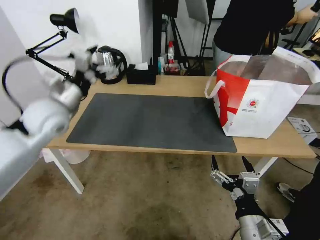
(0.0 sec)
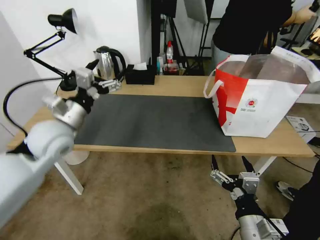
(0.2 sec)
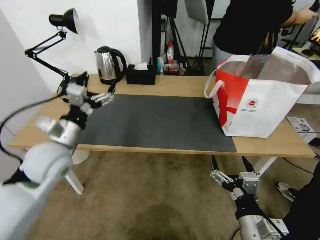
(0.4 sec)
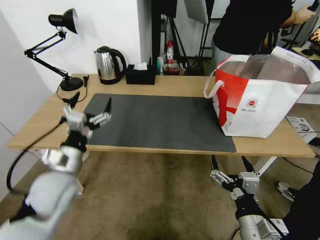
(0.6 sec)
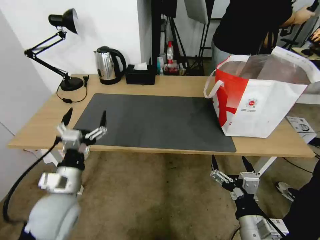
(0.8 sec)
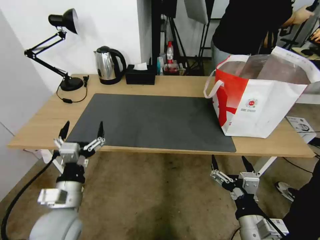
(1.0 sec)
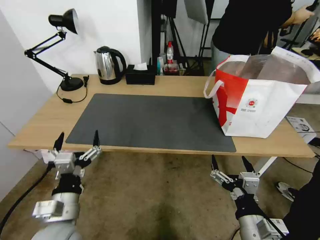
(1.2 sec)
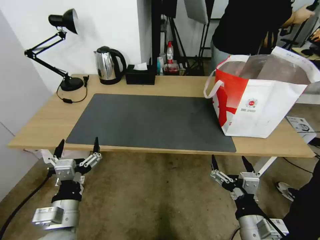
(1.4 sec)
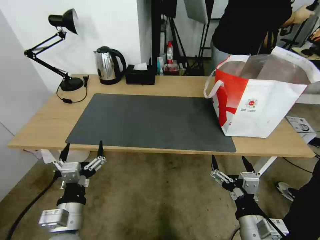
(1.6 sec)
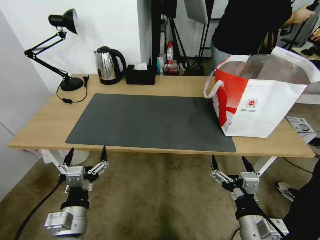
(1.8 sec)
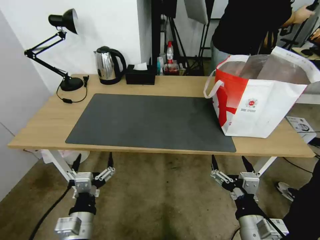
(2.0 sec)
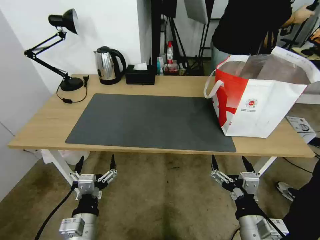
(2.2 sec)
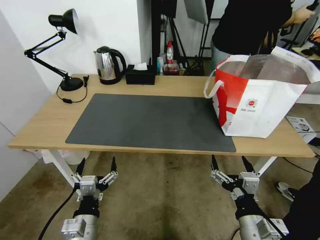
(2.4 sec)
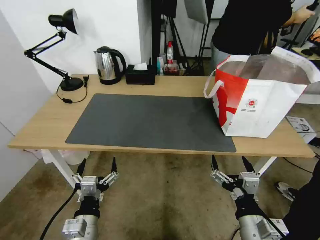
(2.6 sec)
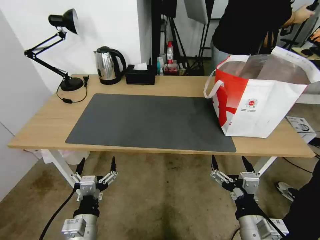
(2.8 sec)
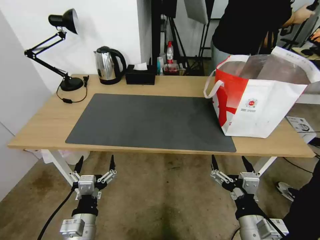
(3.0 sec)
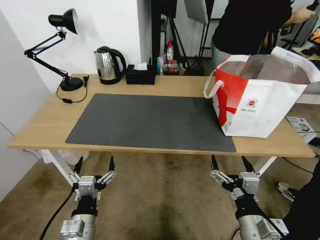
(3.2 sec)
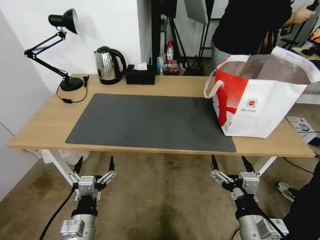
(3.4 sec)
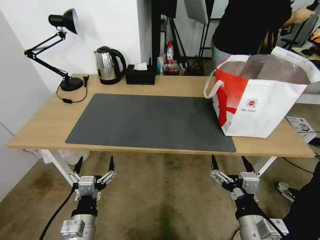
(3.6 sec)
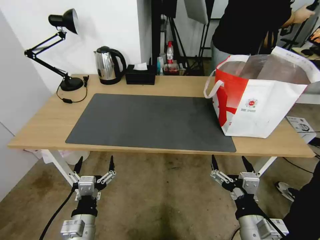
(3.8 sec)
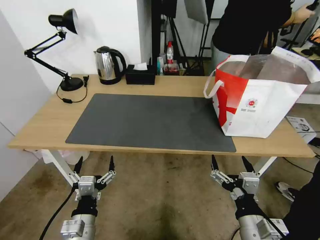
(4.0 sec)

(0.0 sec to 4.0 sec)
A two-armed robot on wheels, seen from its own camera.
Task of the whole recording: Pick up the trash from the table and place it into the takeout bag.
0.0 sec - 1.4 sec: The left gripper heads backward and downward, covering approximately 30 cm.
1.4 sec - 2.6 sec: The left gripper shifts about 5 cm downward.
2.6 sec - 4.0 sec: The two grippers keep their place.
